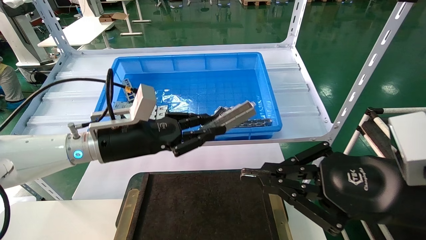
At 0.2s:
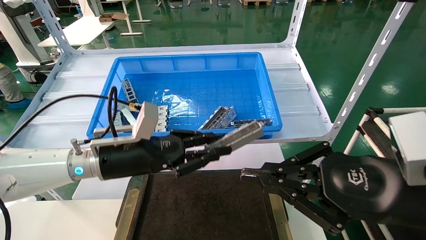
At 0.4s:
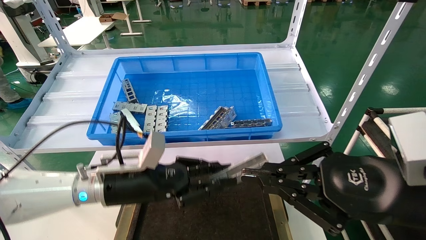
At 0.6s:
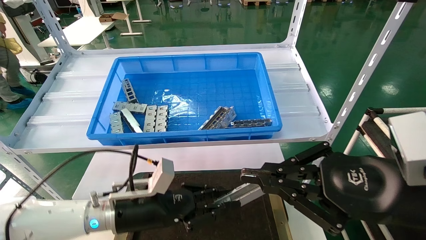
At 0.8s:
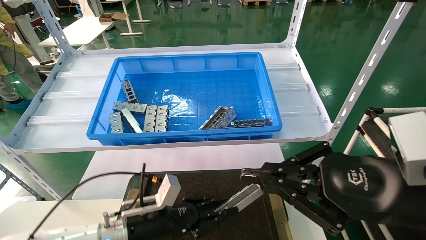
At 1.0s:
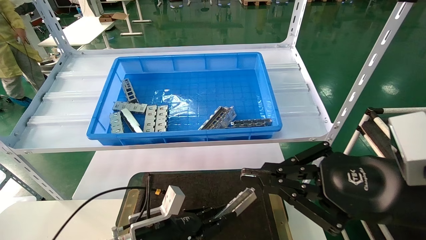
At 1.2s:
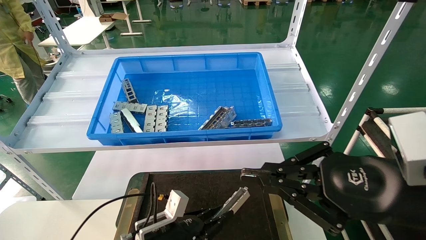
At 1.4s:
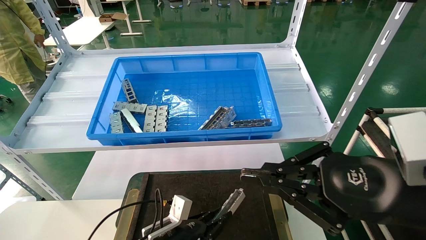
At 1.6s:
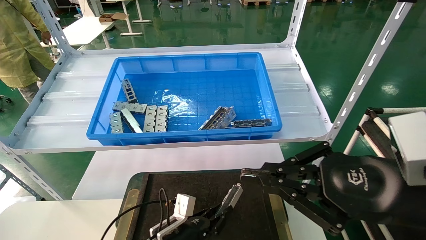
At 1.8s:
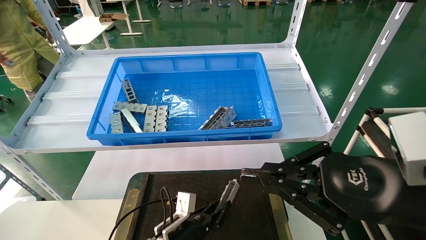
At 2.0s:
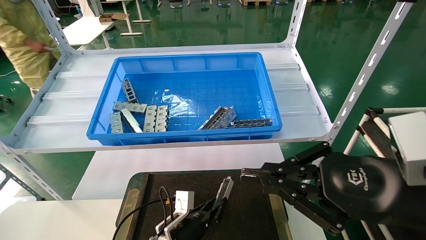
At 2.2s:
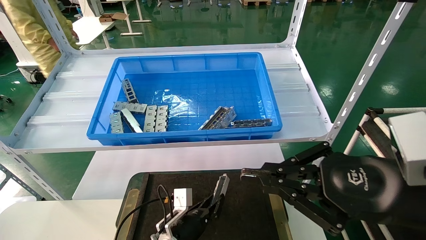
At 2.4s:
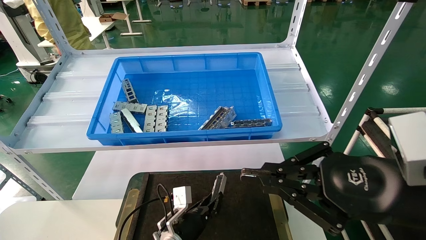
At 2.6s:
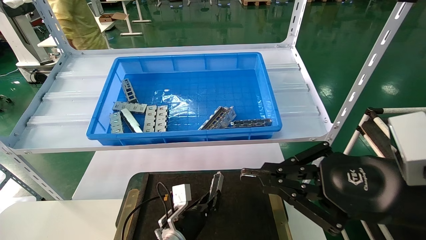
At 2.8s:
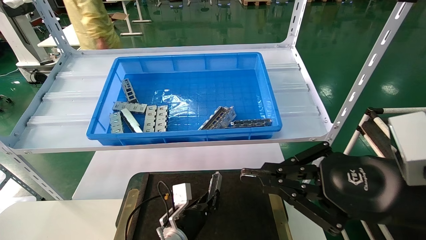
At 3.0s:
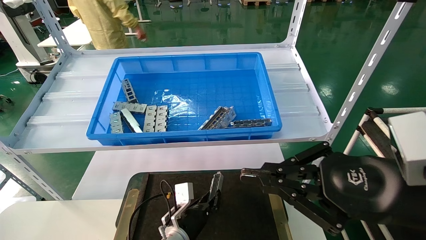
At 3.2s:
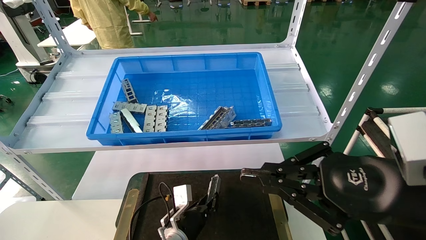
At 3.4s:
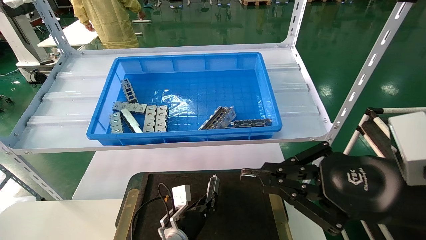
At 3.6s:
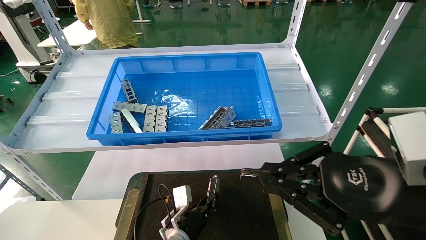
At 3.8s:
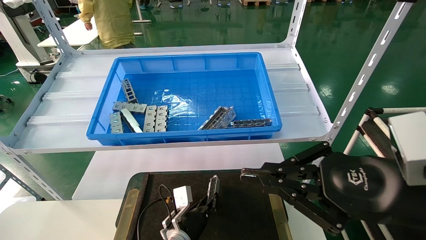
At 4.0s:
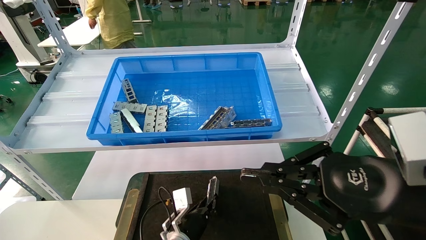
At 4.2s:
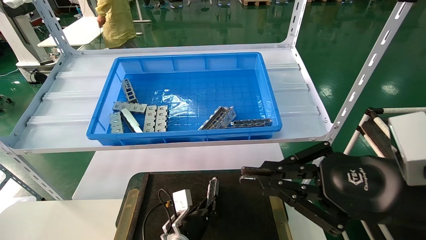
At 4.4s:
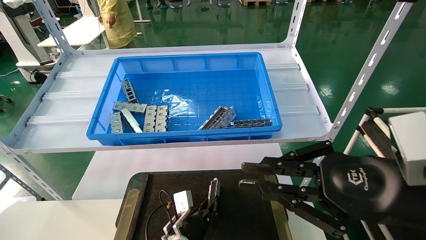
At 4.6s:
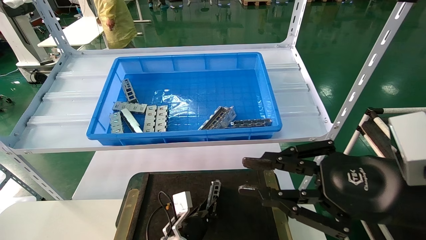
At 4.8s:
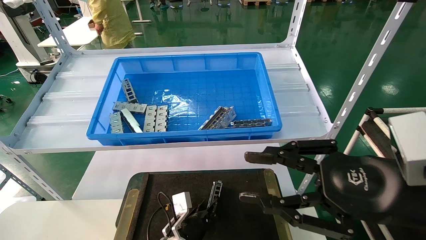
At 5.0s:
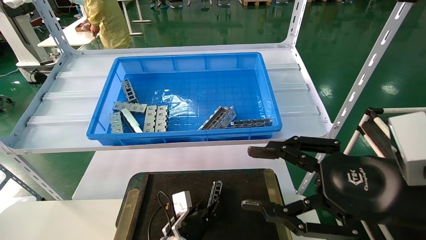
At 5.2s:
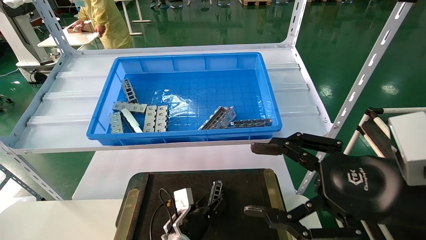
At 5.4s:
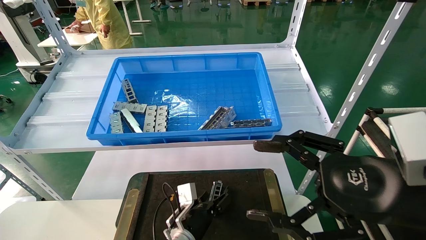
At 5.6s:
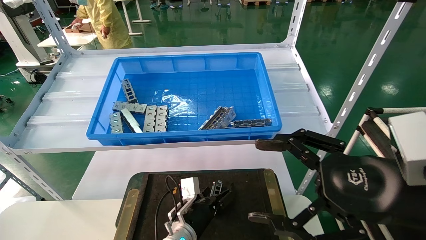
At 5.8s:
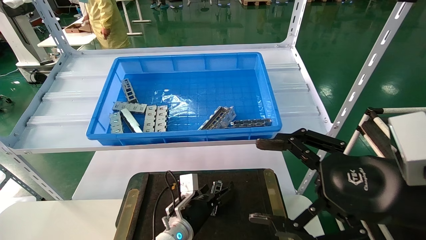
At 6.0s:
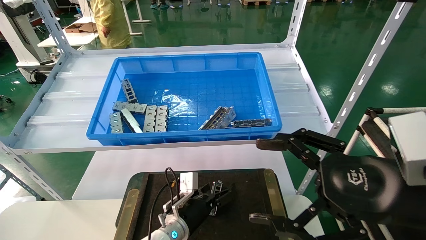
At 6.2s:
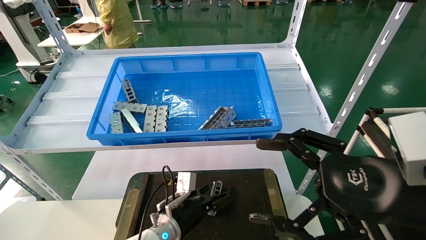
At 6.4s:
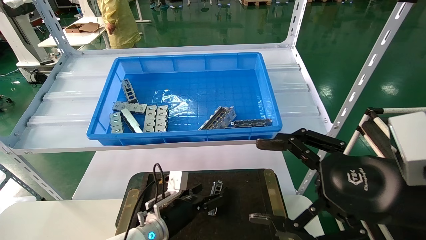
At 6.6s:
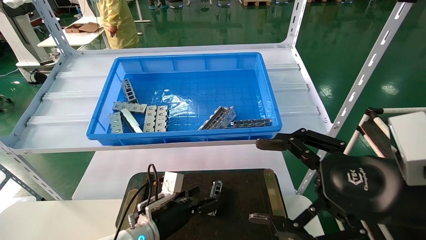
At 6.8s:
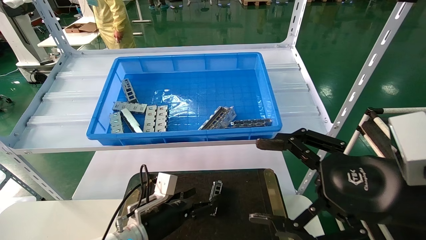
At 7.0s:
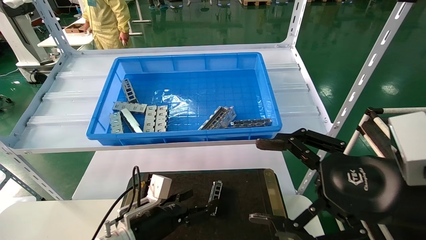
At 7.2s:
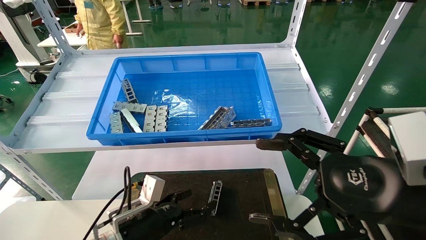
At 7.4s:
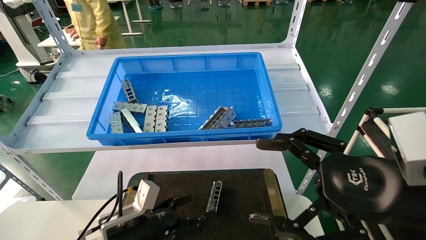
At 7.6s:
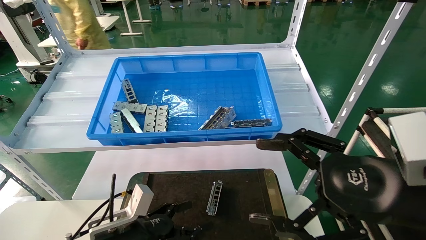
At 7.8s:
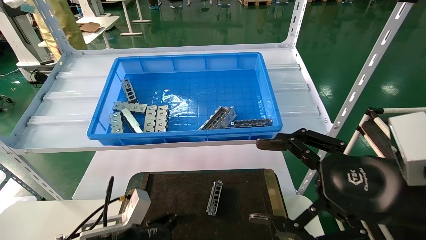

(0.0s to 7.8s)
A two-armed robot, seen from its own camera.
Task of the whole recording: Grasp the part with one hand and place it on the black container.
Step, 0.0s - 4.6s: Place the front USB bracket into the box.
0.0s - 1.6s: The left gripper moves downward, approximately 25 cm.
1.6s - 3.2s: The left gripper changes place by approximately 5 cm.
3.2s - 4.6s: There are only small adjustments of the grippers.
4.6s - 6.2s: The left gripper is displaced upward by roughly 5 cm, and opens its fingers. The right gripper opens its fingers.
6.2s - 7.8s: The left gripper moves backward, to the left and upward, some 15 cm.
